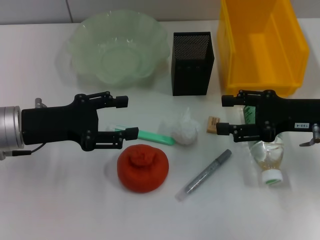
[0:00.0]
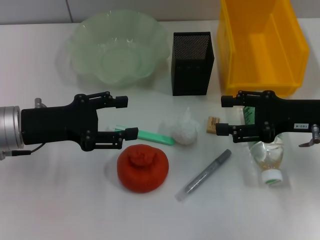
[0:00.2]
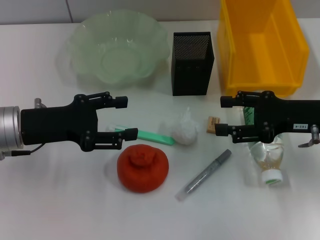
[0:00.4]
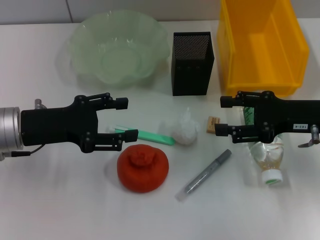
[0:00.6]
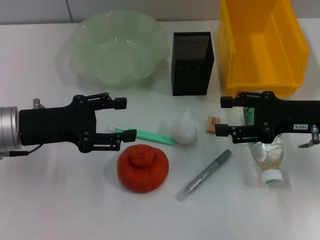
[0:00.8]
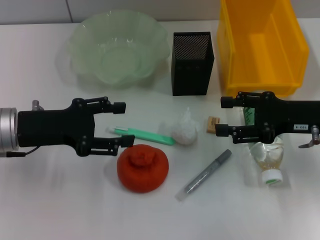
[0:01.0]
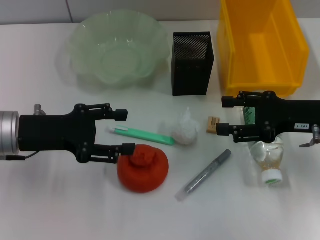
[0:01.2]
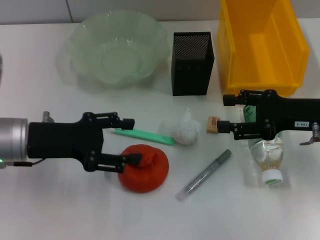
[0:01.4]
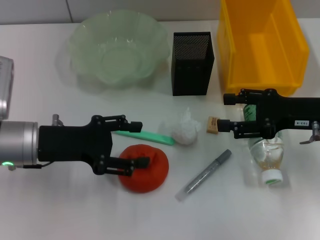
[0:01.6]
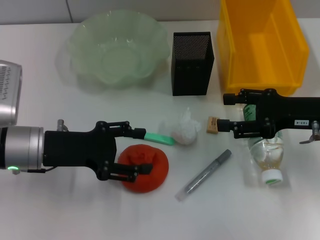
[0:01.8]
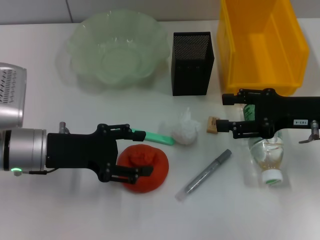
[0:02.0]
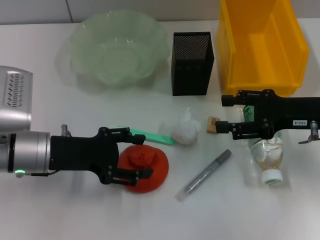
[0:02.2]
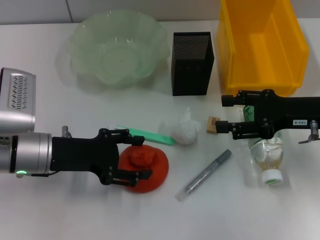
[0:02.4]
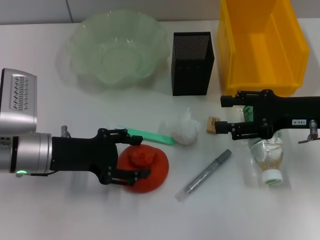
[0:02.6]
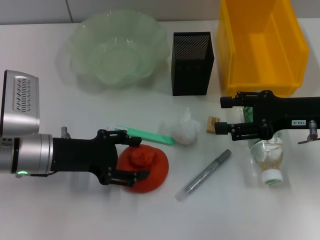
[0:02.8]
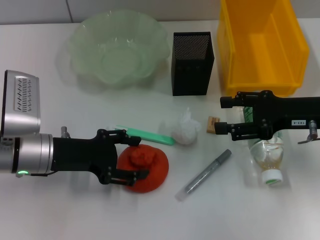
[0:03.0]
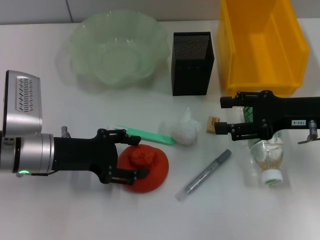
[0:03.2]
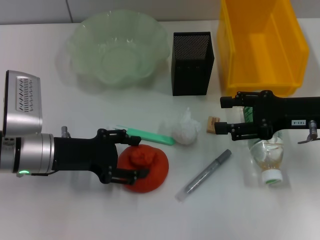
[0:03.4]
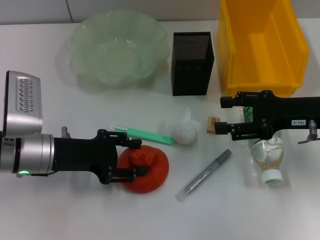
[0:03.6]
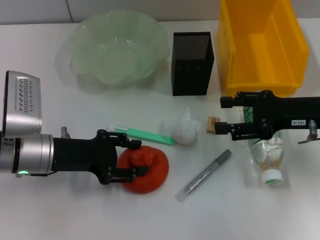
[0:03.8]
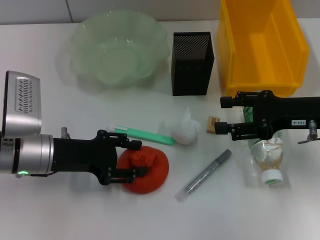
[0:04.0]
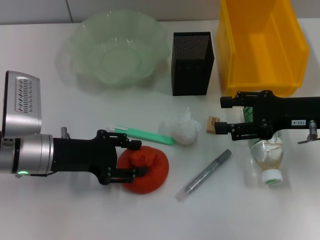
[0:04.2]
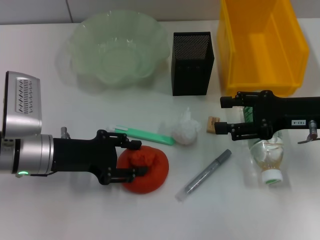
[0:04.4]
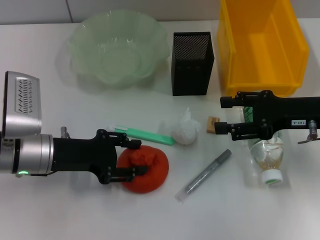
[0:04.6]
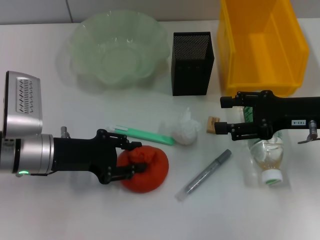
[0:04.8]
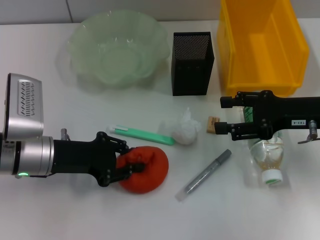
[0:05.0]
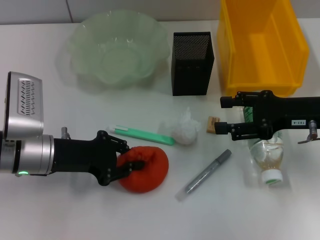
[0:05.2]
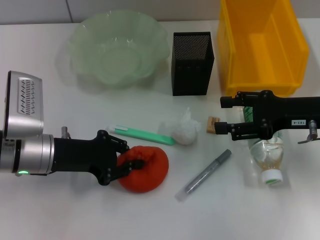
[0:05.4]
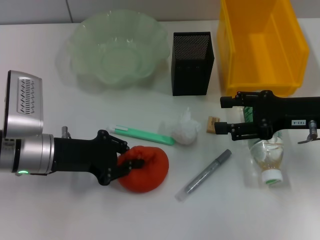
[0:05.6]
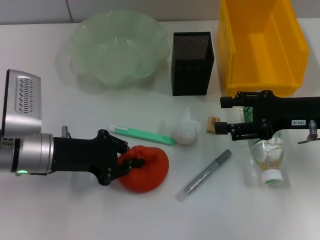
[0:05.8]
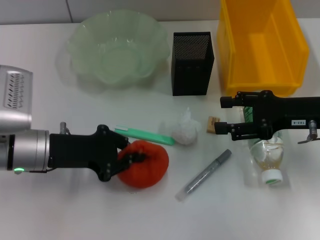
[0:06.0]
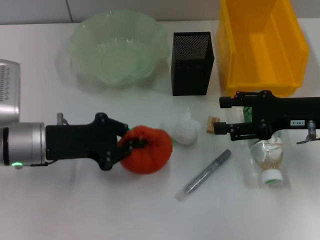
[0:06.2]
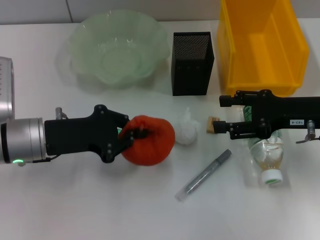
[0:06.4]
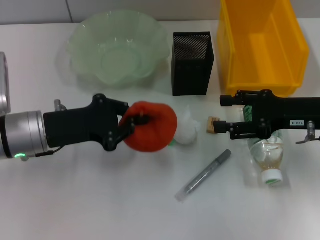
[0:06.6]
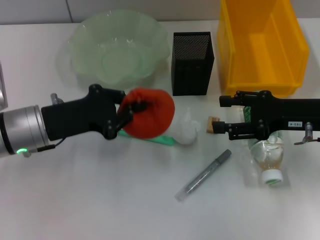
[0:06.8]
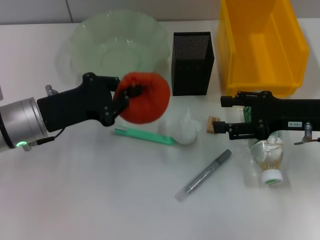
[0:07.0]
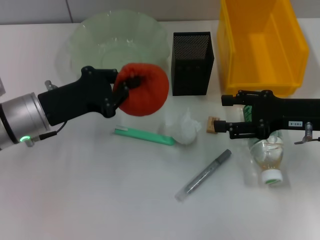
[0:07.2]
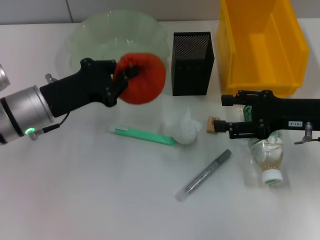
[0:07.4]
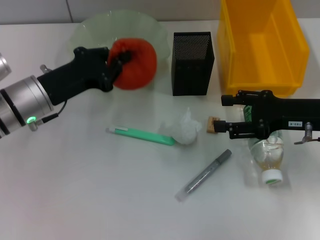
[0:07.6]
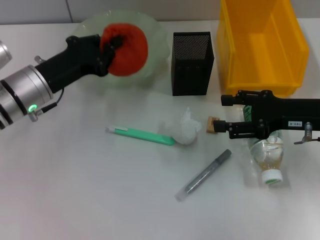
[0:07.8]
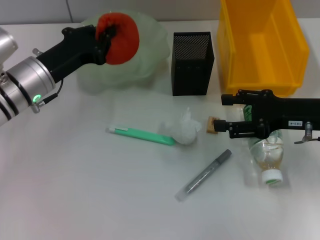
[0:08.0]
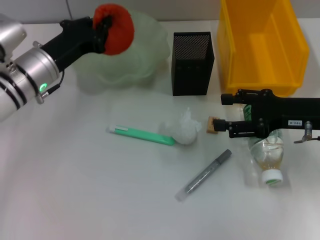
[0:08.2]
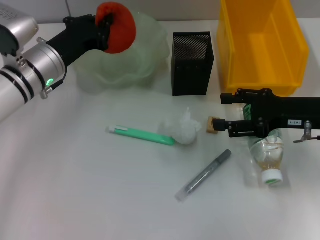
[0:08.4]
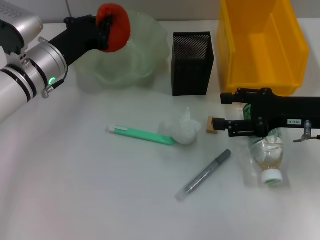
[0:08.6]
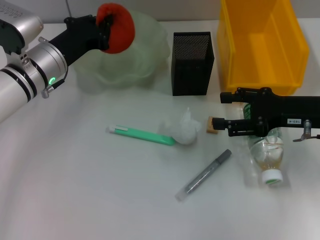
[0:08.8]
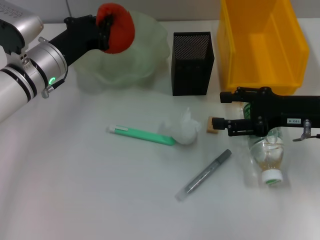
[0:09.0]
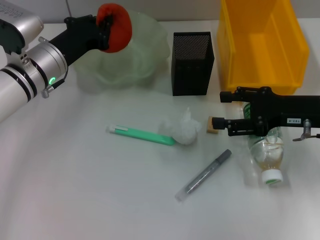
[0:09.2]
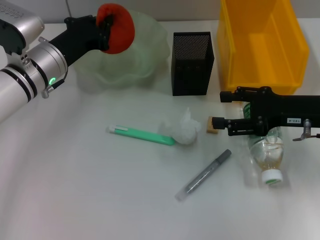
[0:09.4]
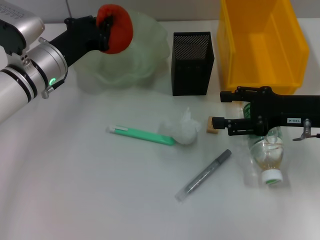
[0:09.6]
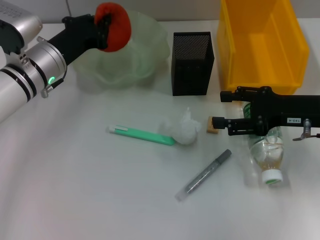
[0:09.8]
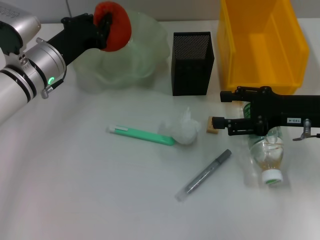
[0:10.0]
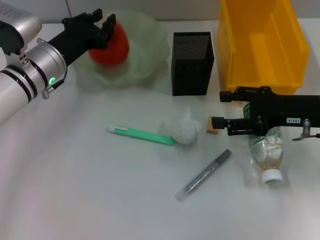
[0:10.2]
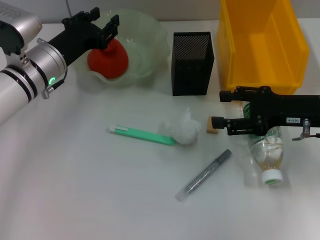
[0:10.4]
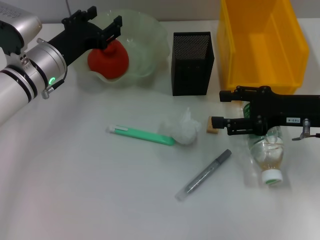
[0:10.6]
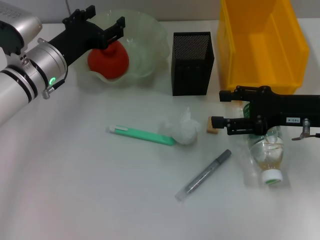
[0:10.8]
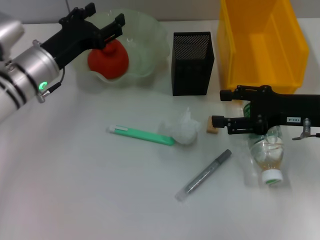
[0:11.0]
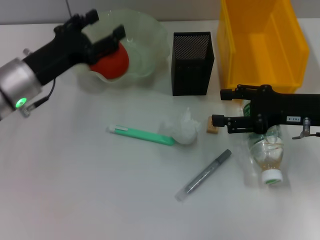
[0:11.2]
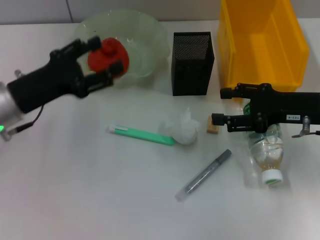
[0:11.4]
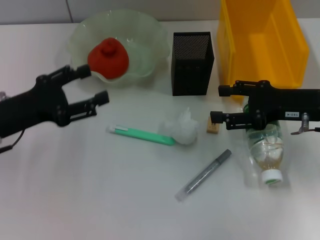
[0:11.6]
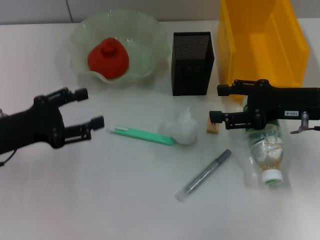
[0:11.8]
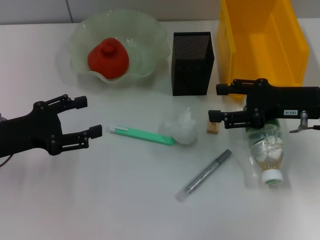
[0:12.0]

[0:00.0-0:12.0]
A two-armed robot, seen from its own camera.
Step, 0:00.0 to 0:05.2: Grab the orange with the left hand.
Step, 0:05.4 to 0:10.6: Place the orange into the fruit bowl with the left hand.
0:00.0 to 0:03.0: The grippers stay close to where they were, moving slightly.
0:03.0 to 0:04.4: Both grippers stay about where they are.
0:04.4 to 0:06.0: The left gripper closes.
0:07.6 to 0:09.0: The left gripper heads forward, covering roughly 5 cm.
0:09.0 to 0:10.4: The left gripper opens up.
0:10.4 to 0:12.0: The left gripper heads backward and to the left, covering some 15 cm, and opens up.

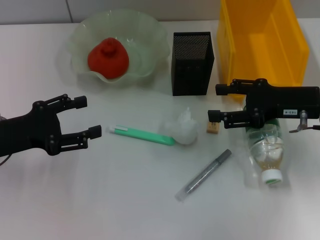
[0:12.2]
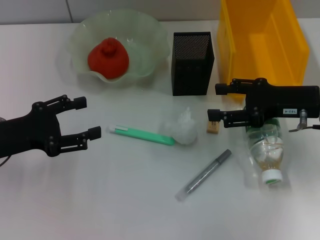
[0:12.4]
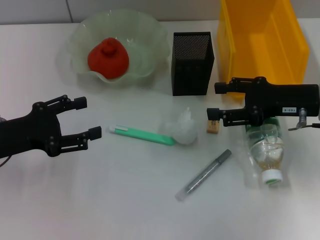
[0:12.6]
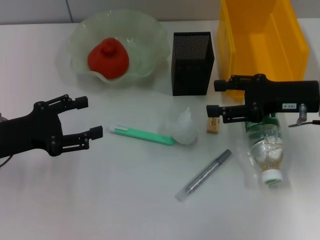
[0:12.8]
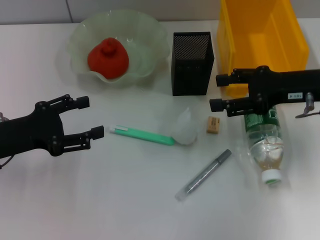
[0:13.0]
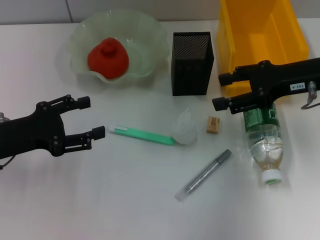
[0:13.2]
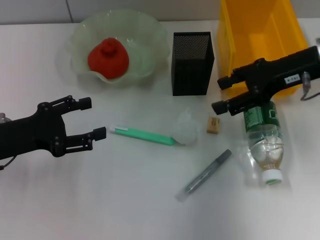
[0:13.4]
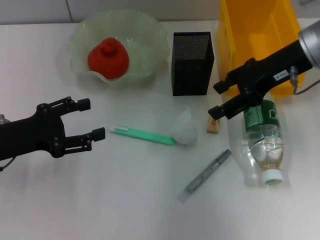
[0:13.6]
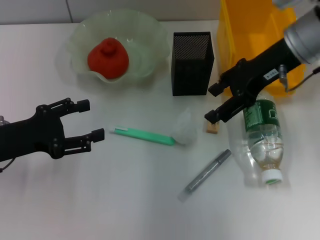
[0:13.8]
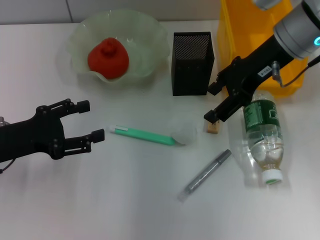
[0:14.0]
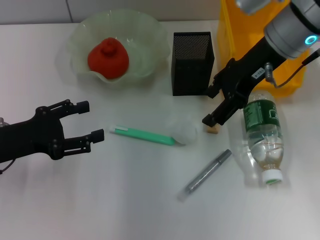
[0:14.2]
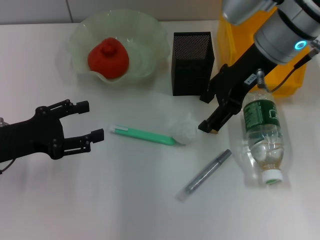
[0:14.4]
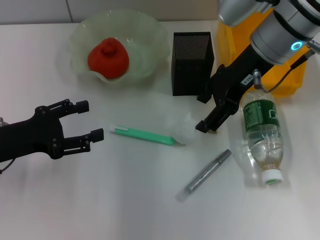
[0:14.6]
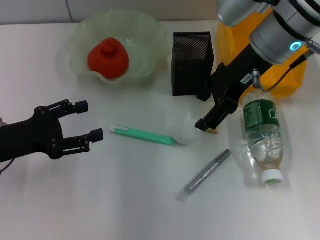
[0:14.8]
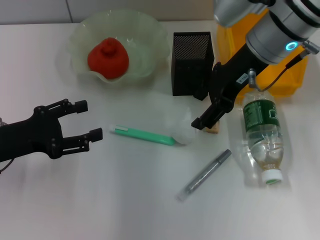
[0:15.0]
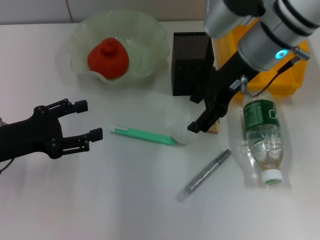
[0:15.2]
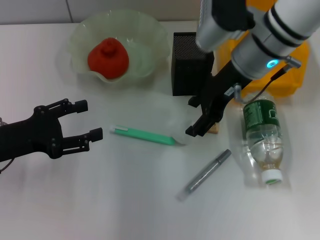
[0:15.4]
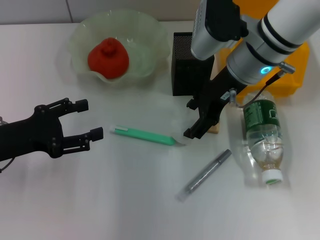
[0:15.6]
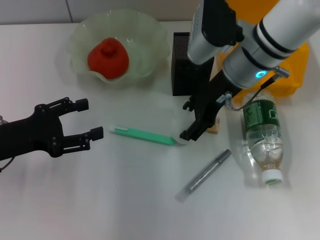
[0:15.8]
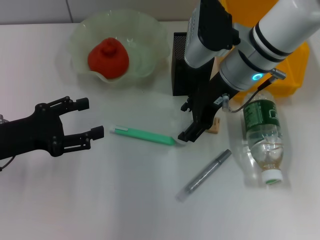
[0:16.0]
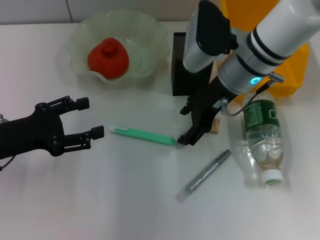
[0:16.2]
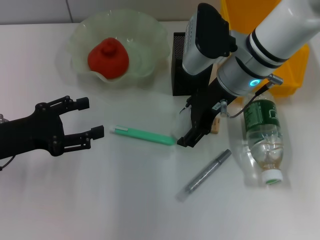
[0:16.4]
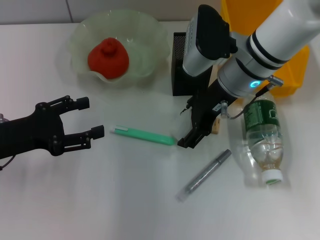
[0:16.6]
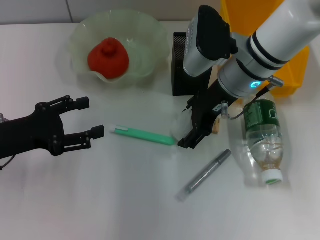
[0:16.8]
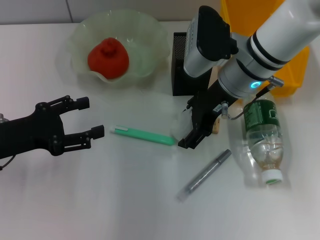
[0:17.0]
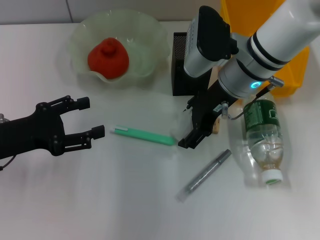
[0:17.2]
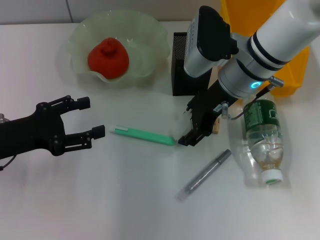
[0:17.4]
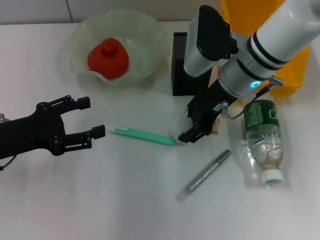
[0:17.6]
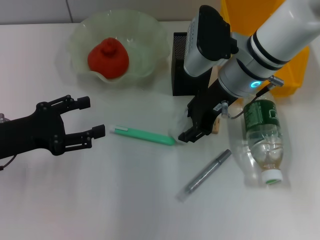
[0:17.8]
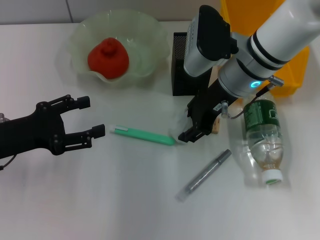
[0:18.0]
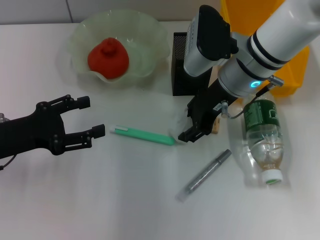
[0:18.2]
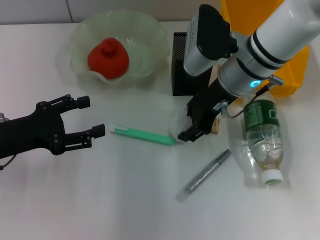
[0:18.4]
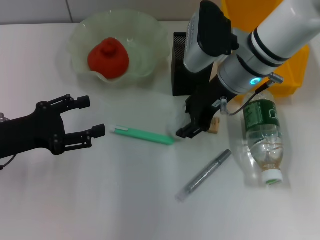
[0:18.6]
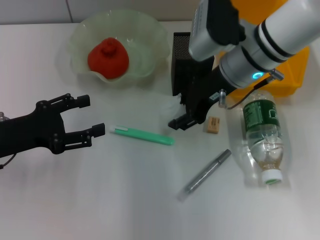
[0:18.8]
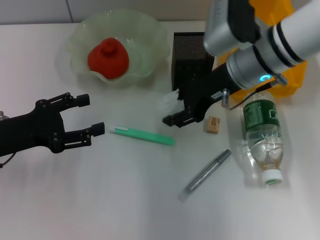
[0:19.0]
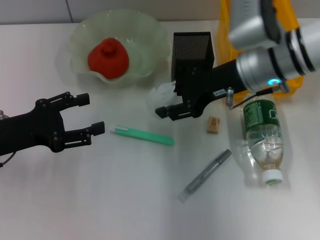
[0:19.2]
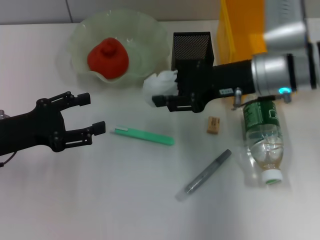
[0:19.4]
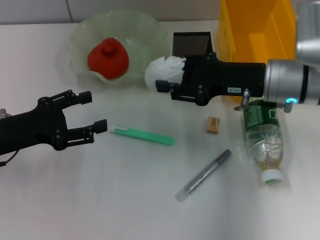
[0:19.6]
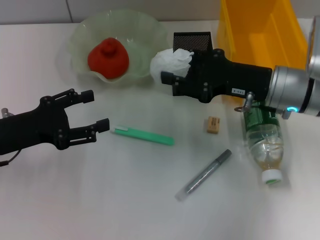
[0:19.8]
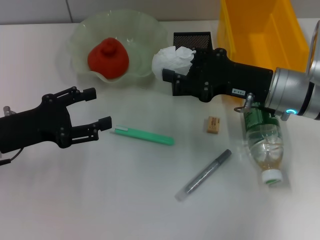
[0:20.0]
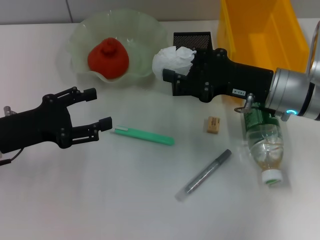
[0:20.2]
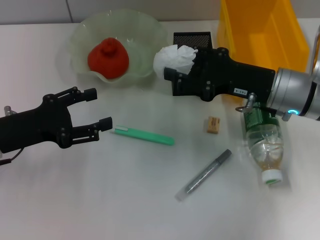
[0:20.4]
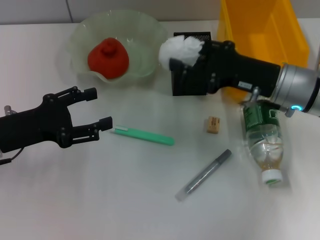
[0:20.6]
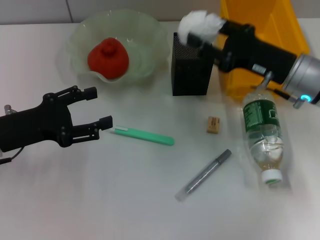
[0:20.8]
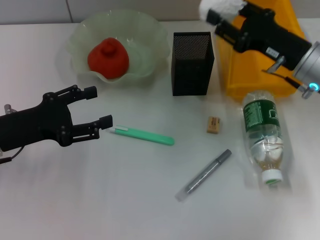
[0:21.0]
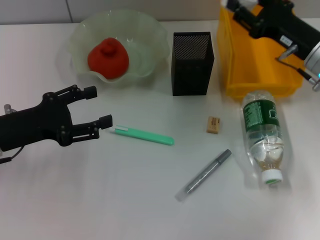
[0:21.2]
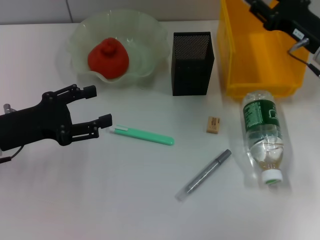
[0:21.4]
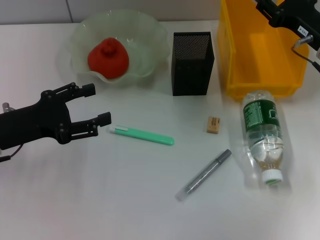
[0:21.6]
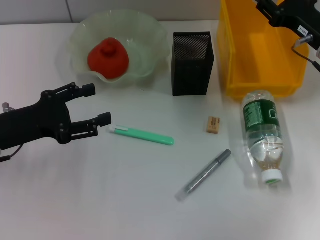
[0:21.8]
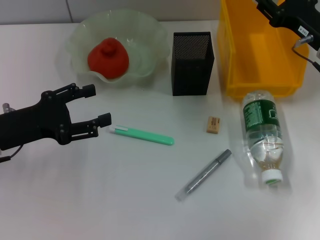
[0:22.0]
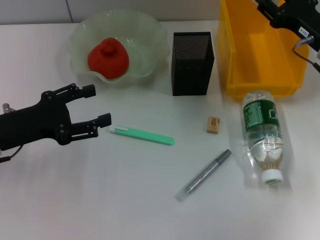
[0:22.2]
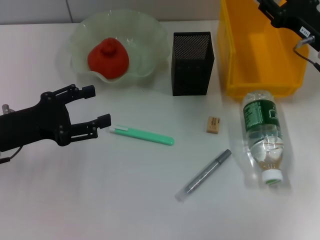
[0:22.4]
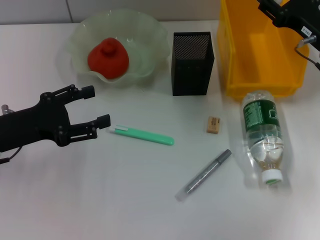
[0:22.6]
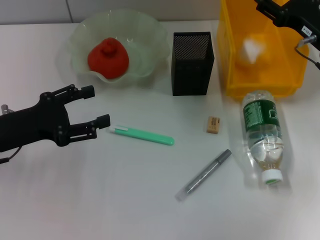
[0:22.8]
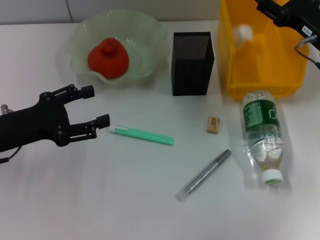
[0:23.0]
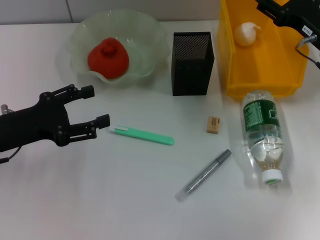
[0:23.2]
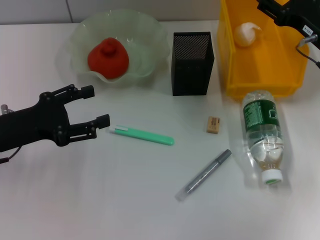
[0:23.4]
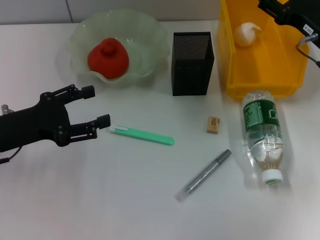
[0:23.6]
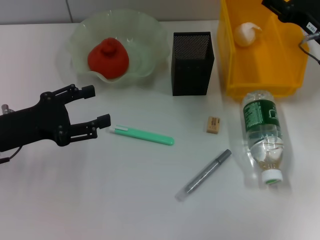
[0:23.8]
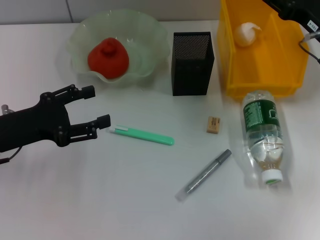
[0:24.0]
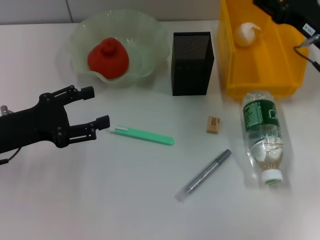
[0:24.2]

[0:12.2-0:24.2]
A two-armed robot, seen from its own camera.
Step, 0:12.2 to 0:18.4: Grab the paper ball with the right hand.
Step, 0:18.6 to 0:23.2: Place the paper ball into the trash can with the right hand.
0:12.2 to 0:13.8: The right gripper shifts some 15 cm upward, to the left and forward.
0:13.8 to 0:15.2: The right gripper heads to the left, covering approximately 5 cm.
0:15.2 to 0:16.6: The right gripper shifts some 5 cm downward.
0:16.6 to 0:18.2: The right gripper closes up.
0:18.2 to 0:19.8: The right gripper heads to the right, covering approximately 10 cm.
0:19.8 to 0:21.2: The right gripper shifts about 5 cm to the right.
0:21.2 to 0:22.6: The grippers make only small movements.
0:22.6 to 0:24.2: The right gripper opens up.
